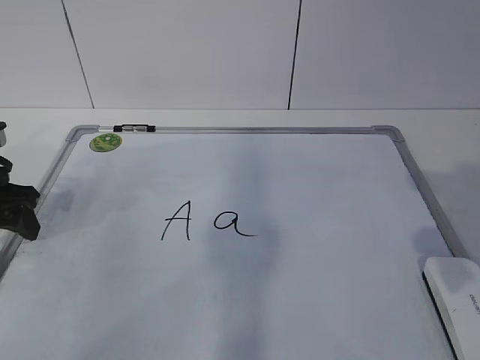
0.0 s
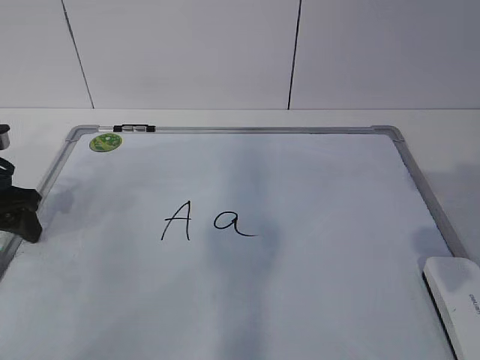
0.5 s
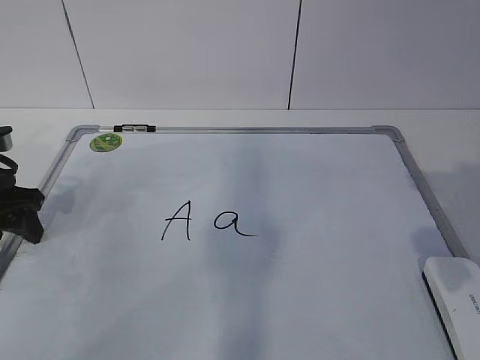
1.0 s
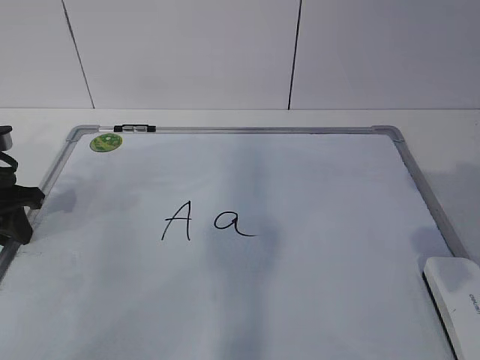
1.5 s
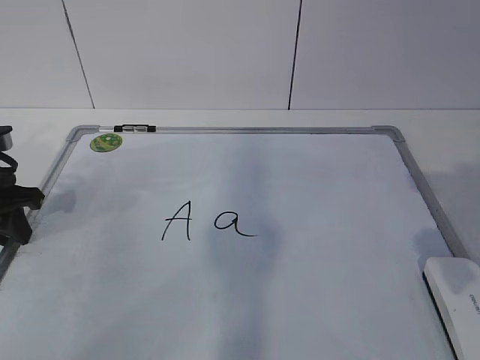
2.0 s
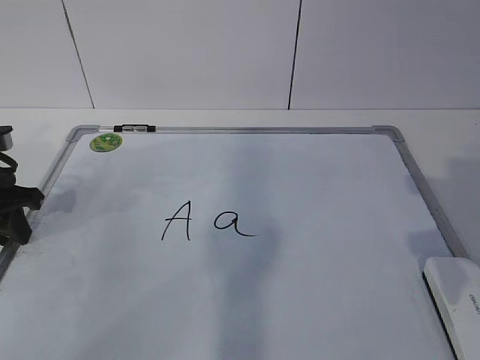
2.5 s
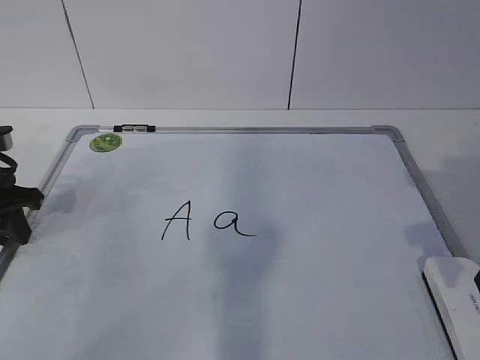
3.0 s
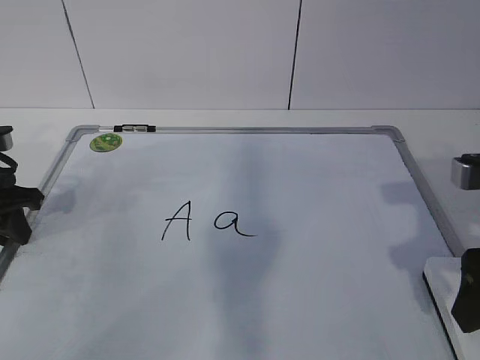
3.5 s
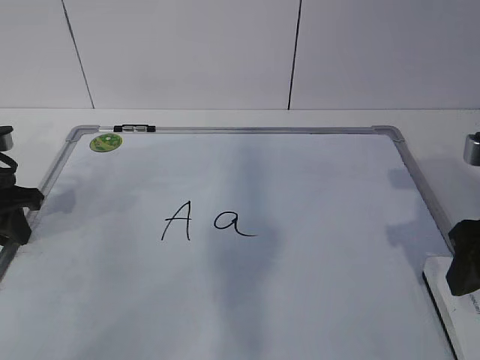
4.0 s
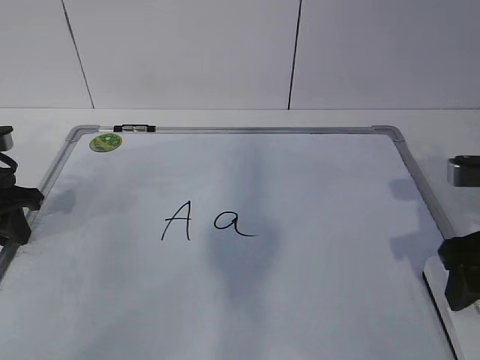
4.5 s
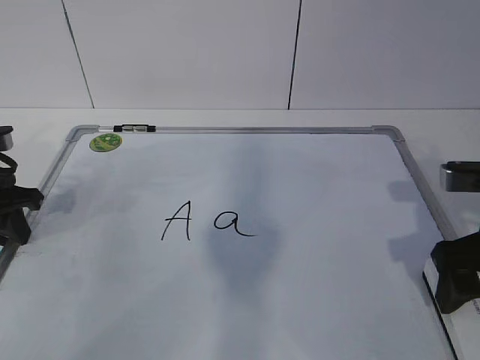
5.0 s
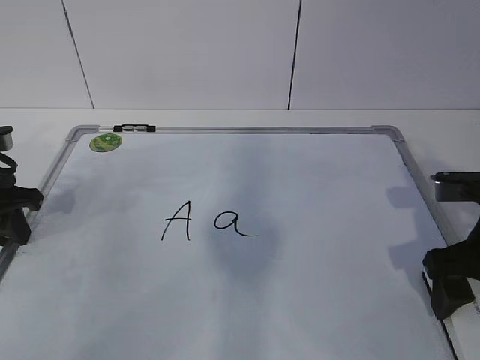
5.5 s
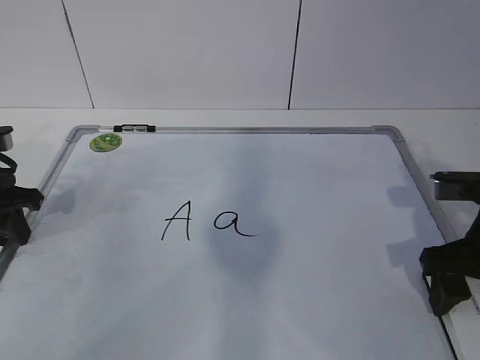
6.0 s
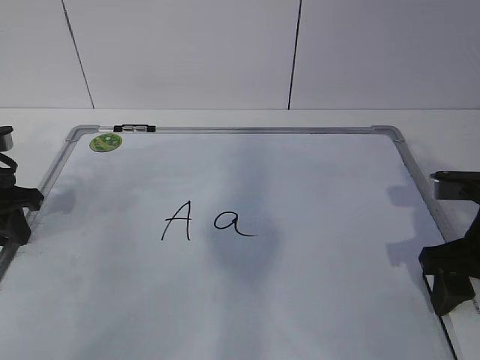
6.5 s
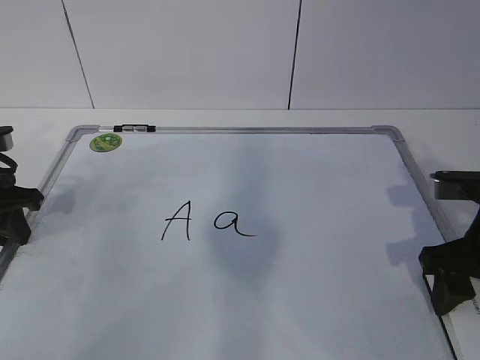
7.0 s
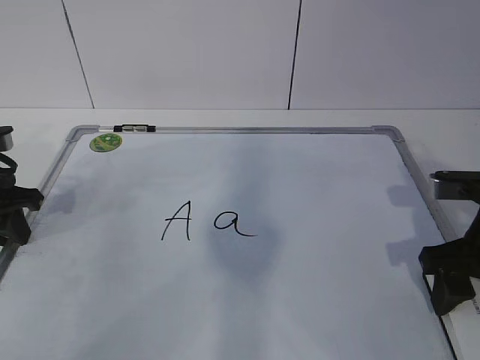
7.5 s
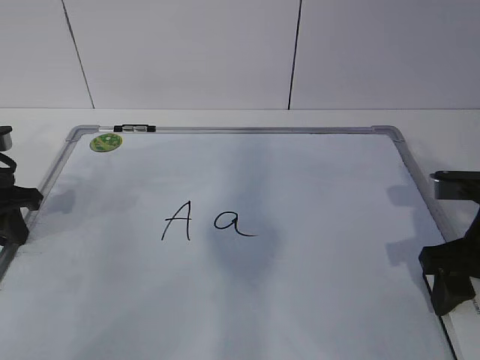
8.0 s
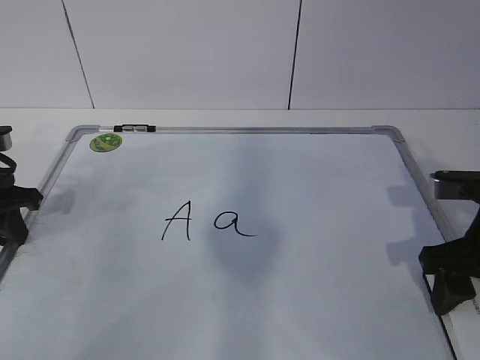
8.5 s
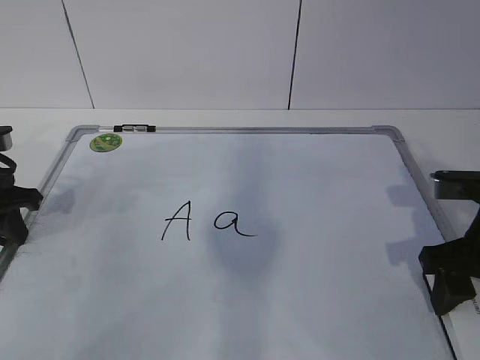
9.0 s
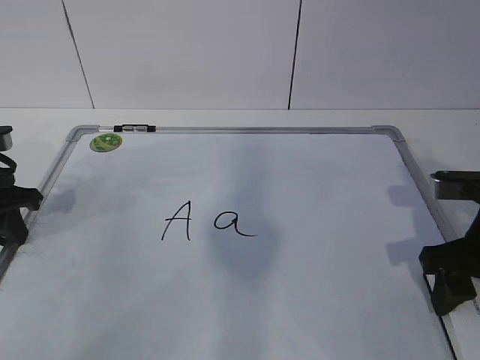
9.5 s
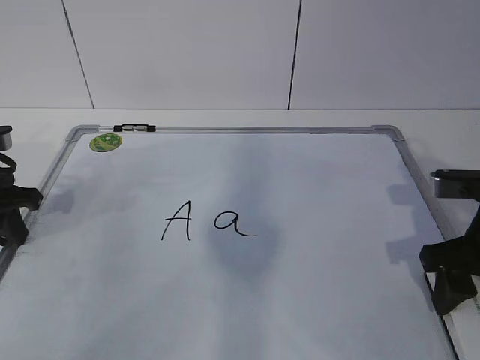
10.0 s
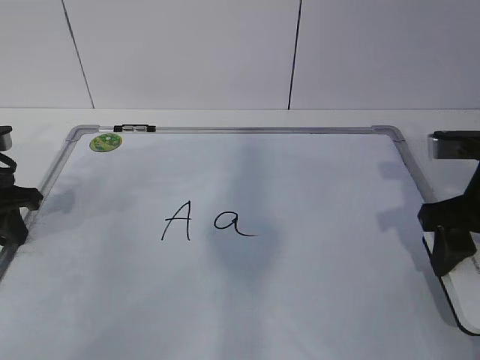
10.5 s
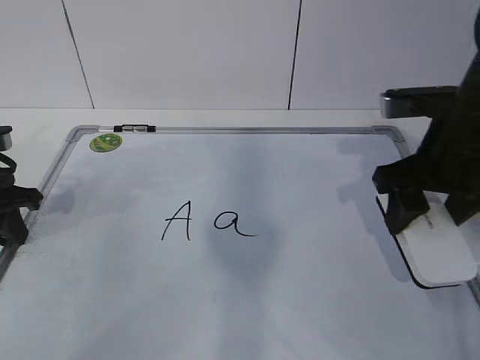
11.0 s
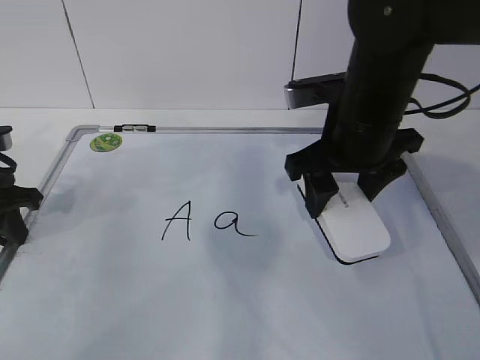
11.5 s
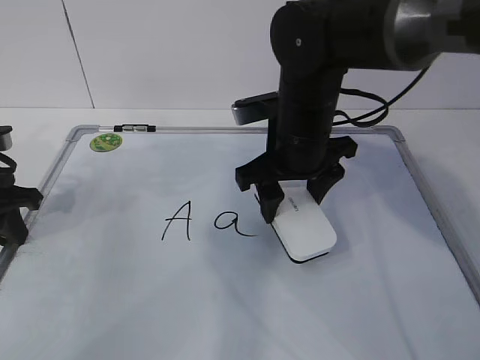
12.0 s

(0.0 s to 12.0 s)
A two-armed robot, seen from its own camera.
Task of the whole recording: pick up the eraser on the blackboard and erase the letter "a".
Step, 1.0 s - 4.0 s: Grab the eraser with your right hand.
0.0 s - 2.0 s: The left gripper closes.
2.0 s - 4.0 s: The right gripper goes approximately 5 cm forward.
4.0 s - 6.0 s: The right gripper is displaced downward by about 5 cm.
8.0 s - 10.0 s: Neither gripper changes place.
10.0 s - 12.0 s: The right gripper moves to the left and forward, roughly 20 cm.

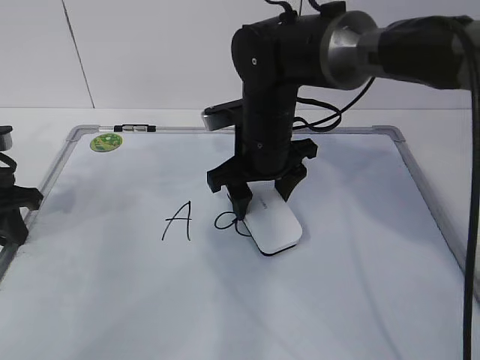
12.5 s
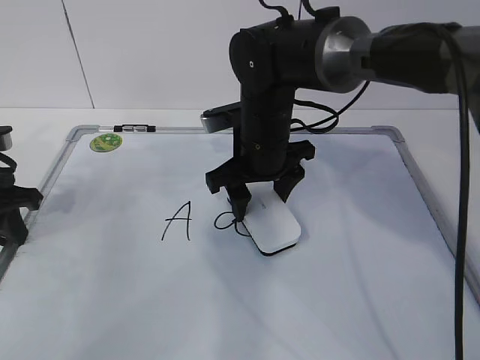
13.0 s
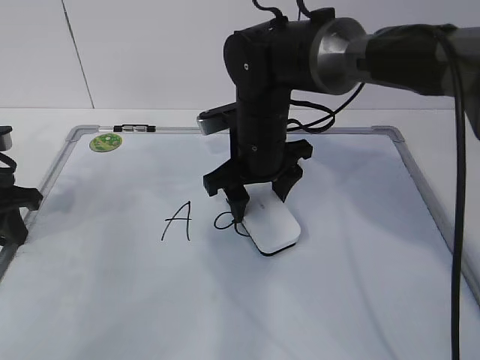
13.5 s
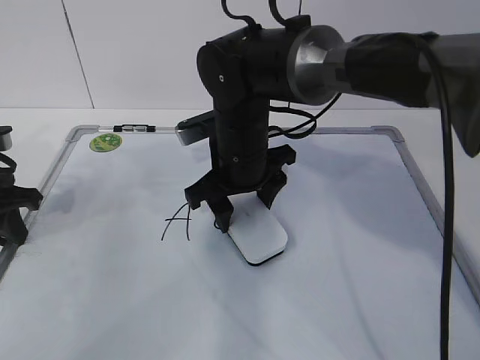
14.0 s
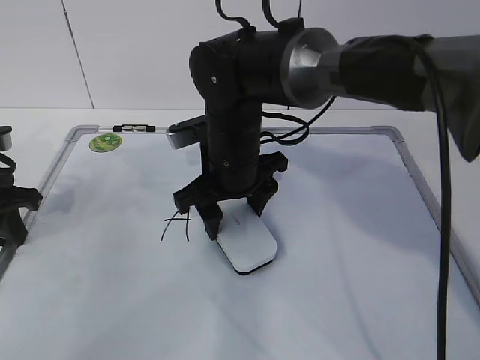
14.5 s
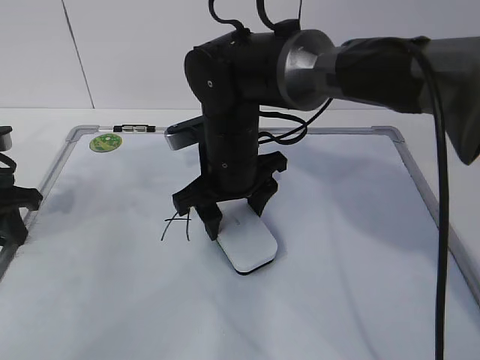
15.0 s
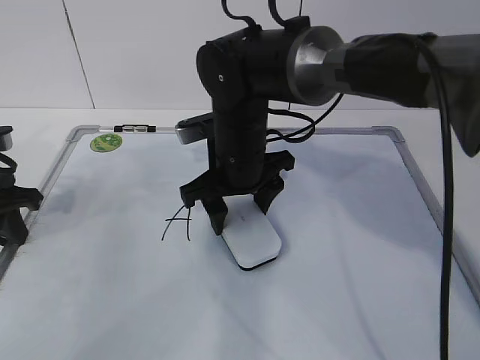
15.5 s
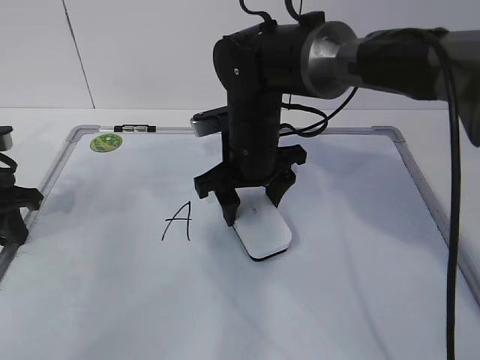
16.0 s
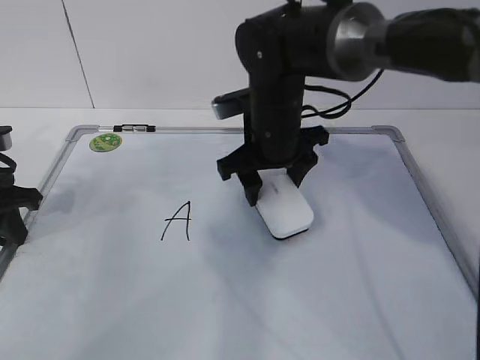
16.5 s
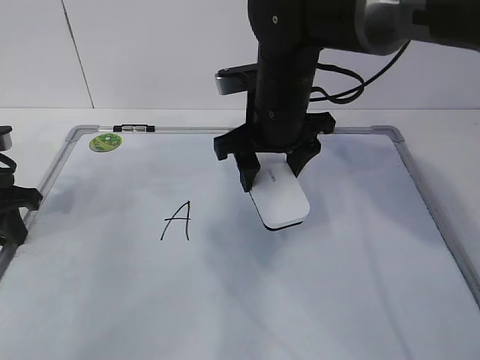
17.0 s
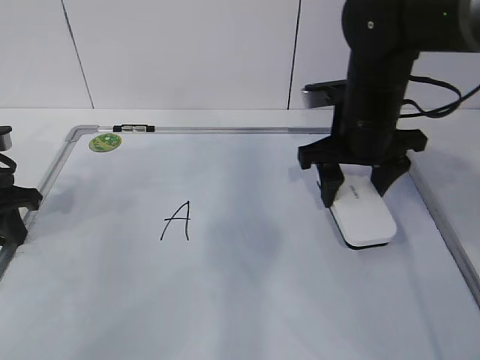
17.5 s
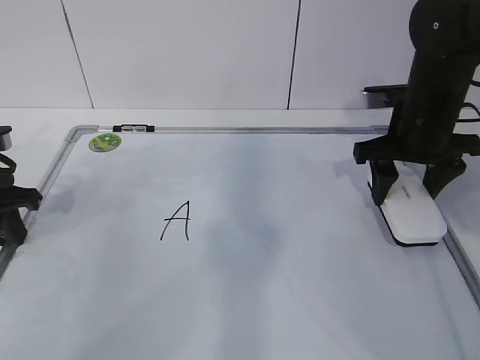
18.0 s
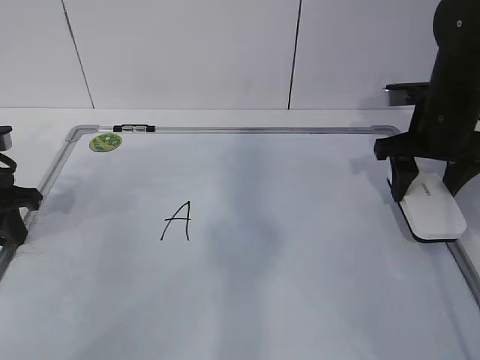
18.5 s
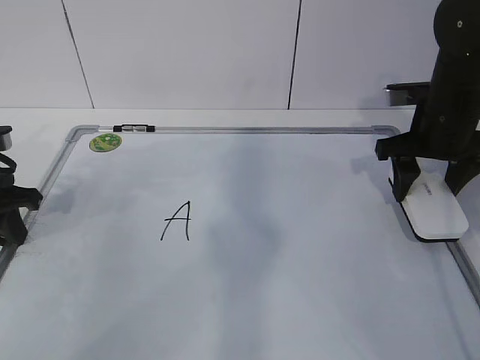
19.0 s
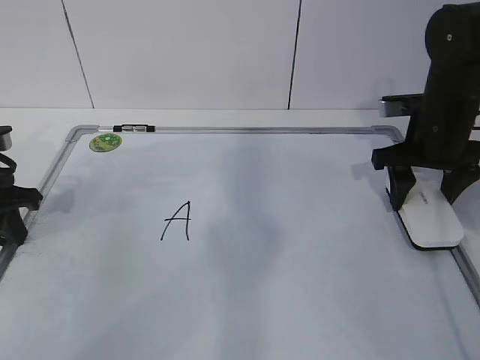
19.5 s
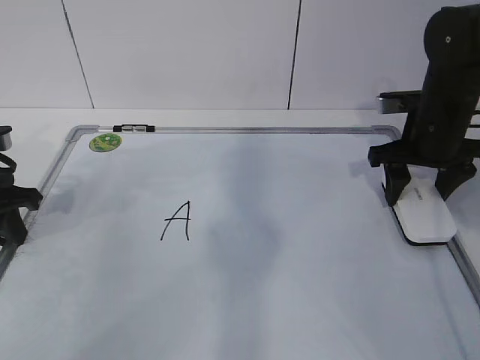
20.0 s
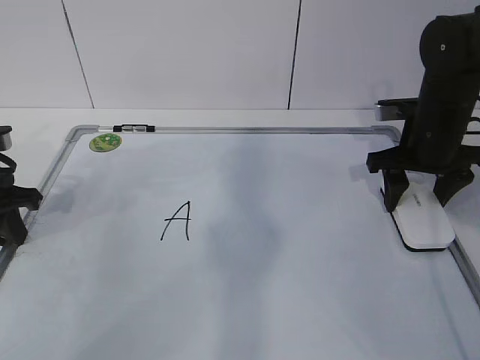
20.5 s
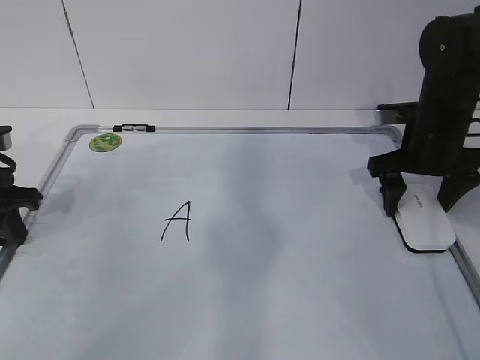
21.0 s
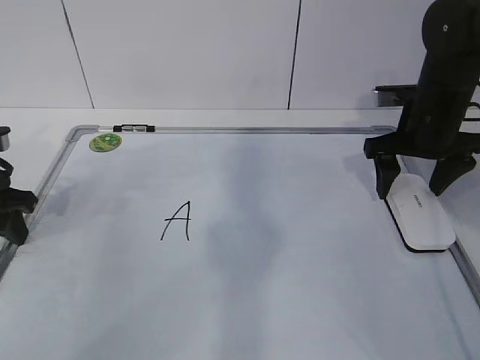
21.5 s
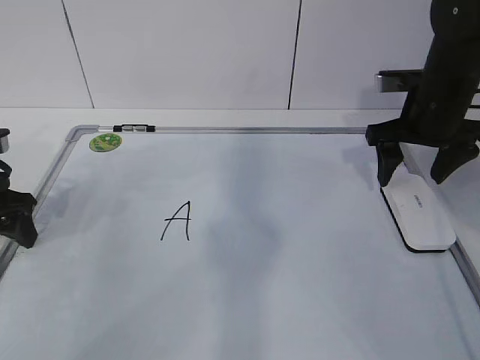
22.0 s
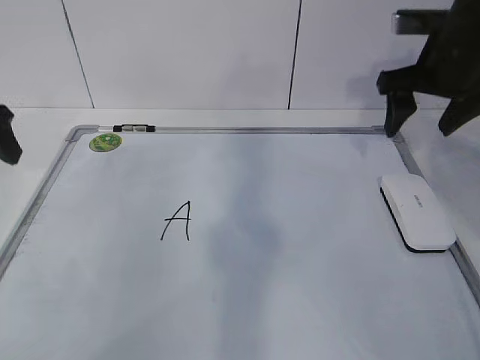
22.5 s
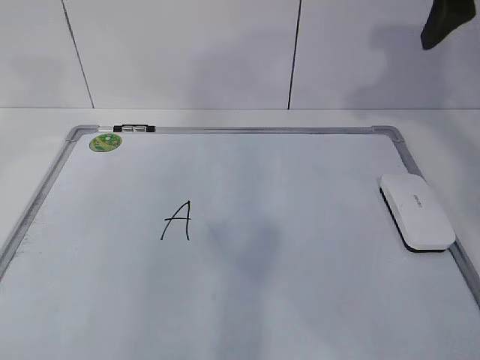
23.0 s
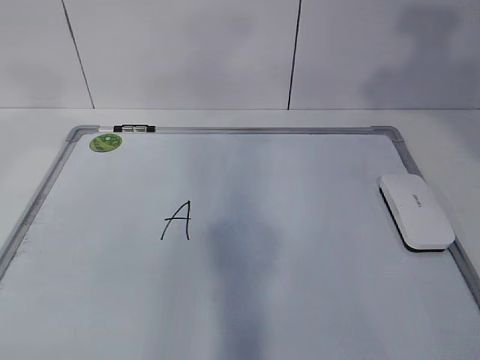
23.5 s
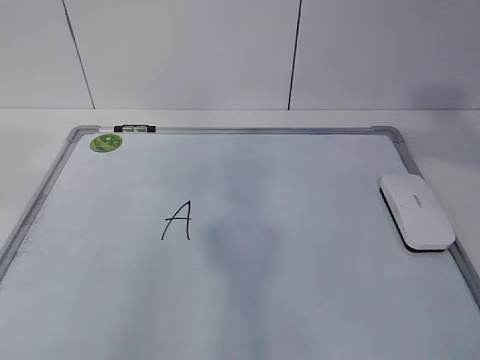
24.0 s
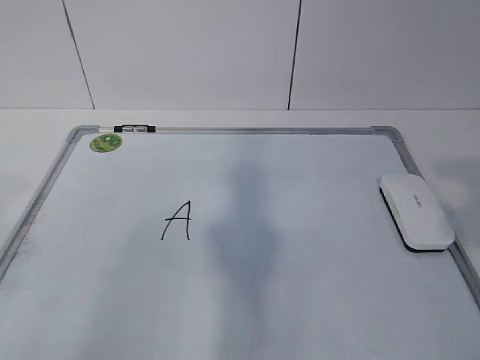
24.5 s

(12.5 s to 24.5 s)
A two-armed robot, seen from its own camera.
Task of the whole recording: pick up the eraser on the blackboard and erase the letter "a".
Step, 13.0 s - 16.0 s: Put down the eraser with your right hand.
14.5 s - 16.5 s: The right gripper goes approximately 5 cm to the right.
16.5 s - 18.5 s: The right gripper shifts some 20 cm to the right.
18.5 s - 20.5 s: The grippers stay close to where they were, moving slightly.
20.5 s - 22.5 s: Both grippers move upward, roughly 10 cm. The left gripper opens. The right gripper opens its fingers.
22.5 s - 24.5 s: The two grippers go approximately 30 cm backward.

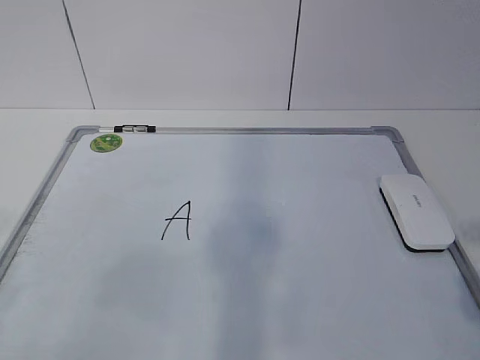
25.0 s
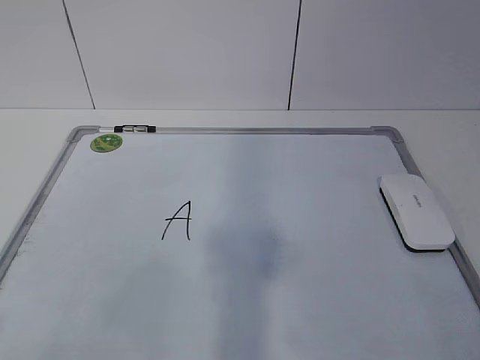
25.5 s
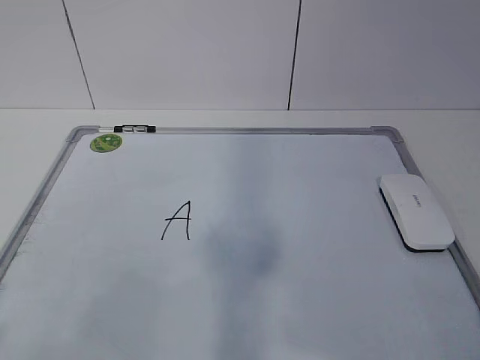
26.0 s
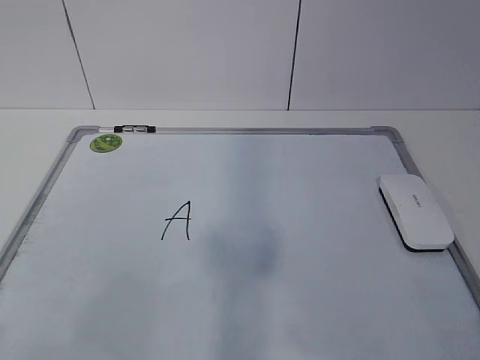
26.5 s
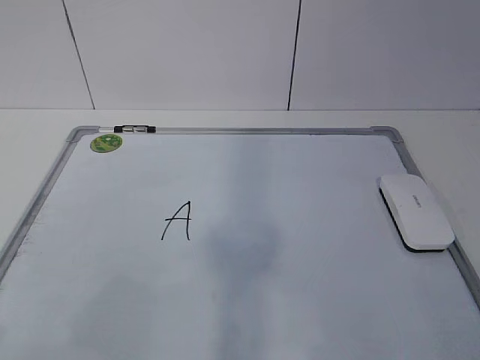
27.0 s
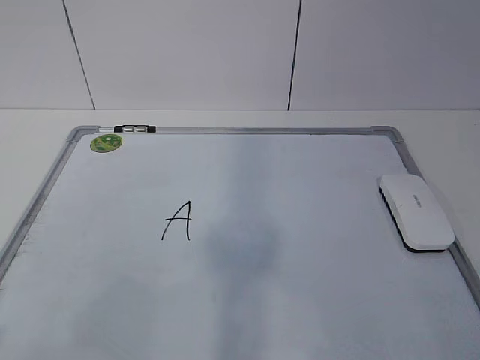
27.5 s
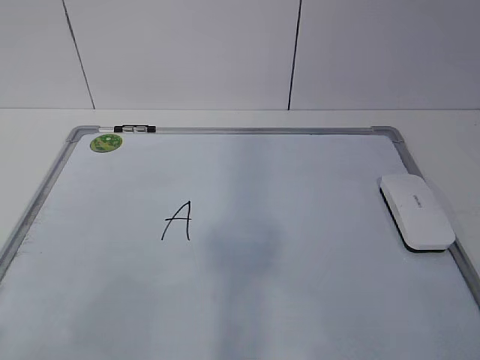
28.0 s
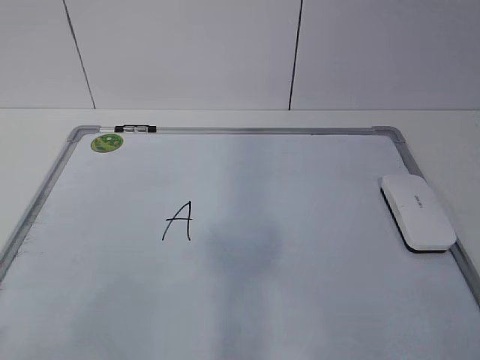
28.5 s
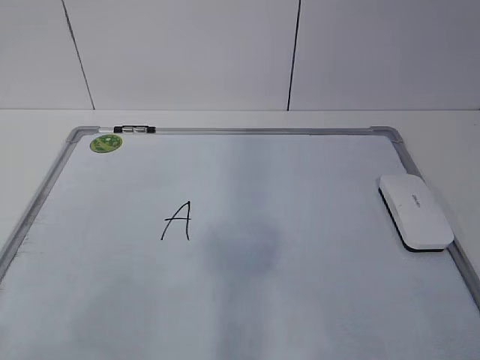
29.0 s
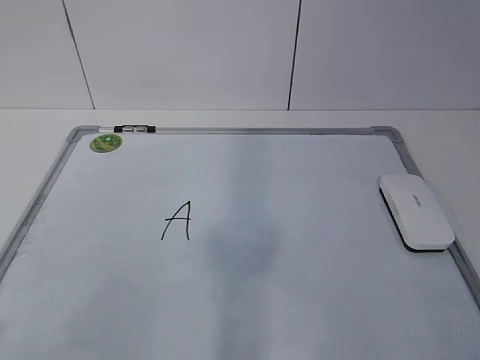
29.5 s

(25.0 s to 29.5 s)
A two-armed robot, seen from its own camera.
Task of the whole recording: pick up the eraser on the blackboard and erase the letter "a".
27.0 s - 29.5 s: Both grippers stay about where they are.
